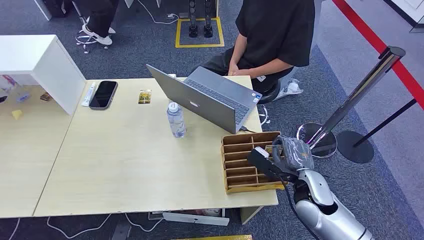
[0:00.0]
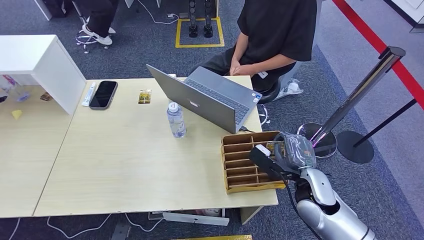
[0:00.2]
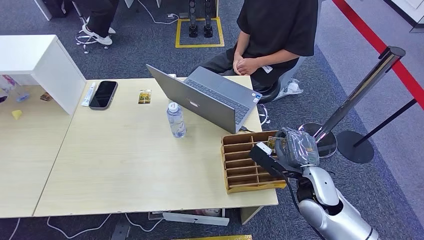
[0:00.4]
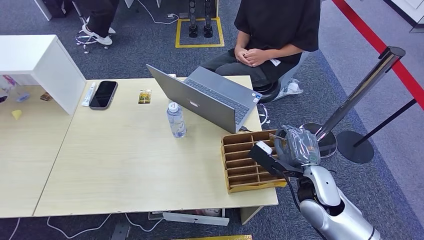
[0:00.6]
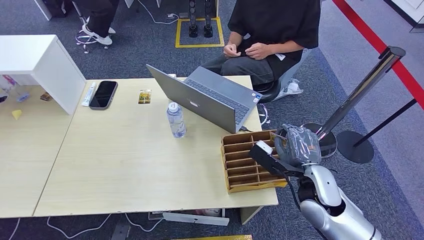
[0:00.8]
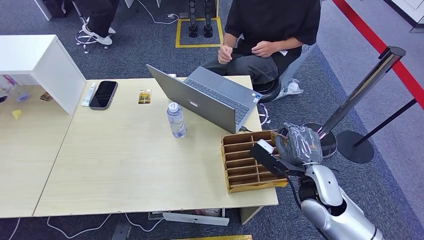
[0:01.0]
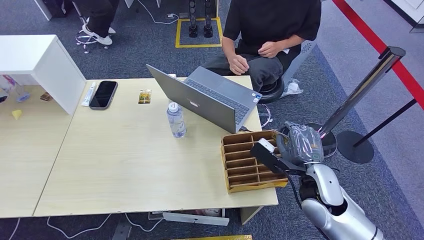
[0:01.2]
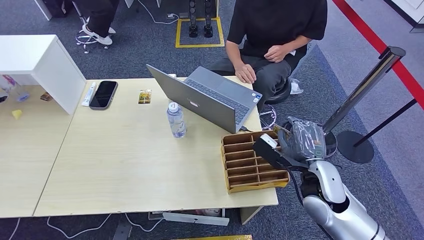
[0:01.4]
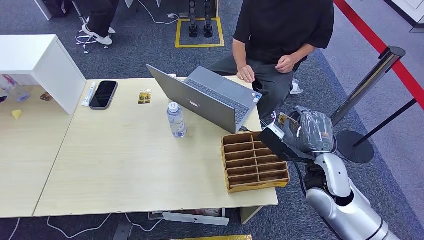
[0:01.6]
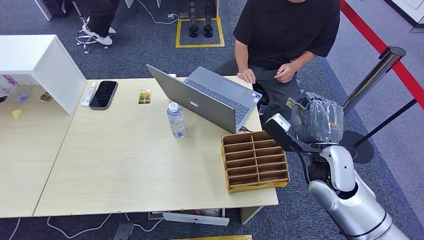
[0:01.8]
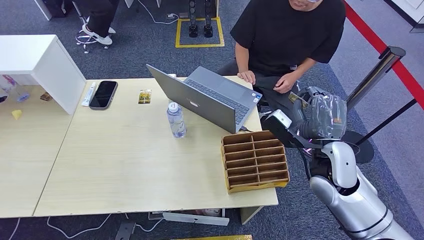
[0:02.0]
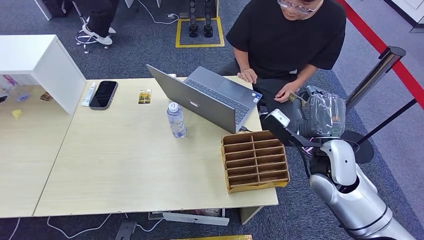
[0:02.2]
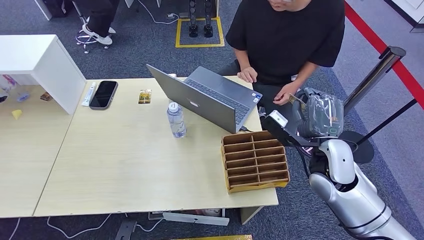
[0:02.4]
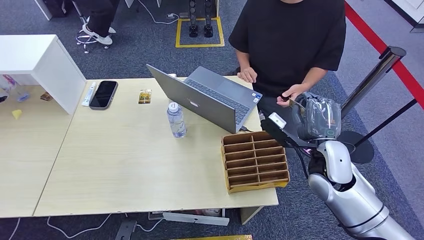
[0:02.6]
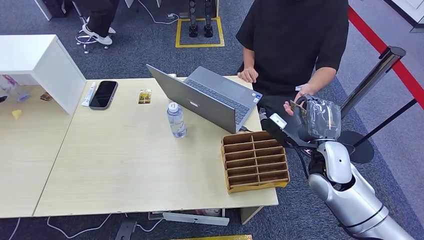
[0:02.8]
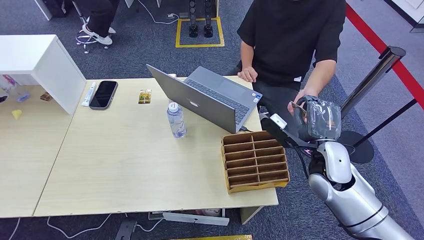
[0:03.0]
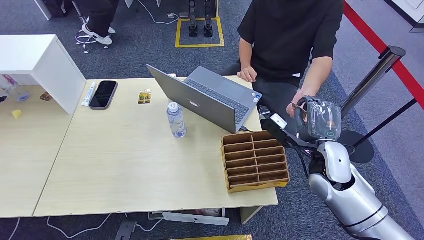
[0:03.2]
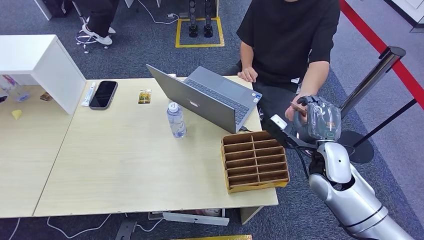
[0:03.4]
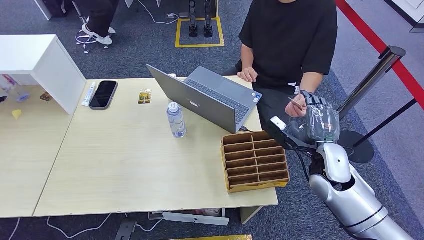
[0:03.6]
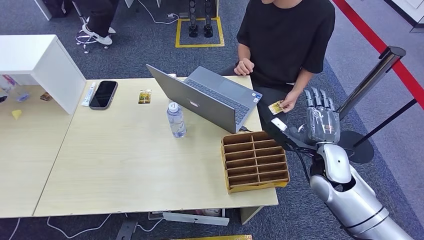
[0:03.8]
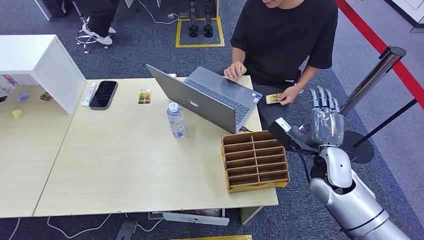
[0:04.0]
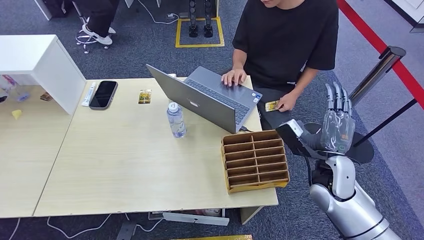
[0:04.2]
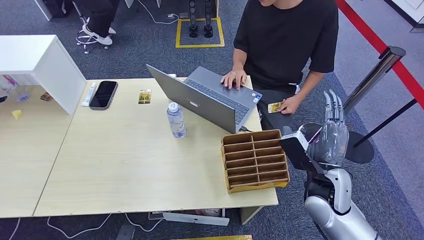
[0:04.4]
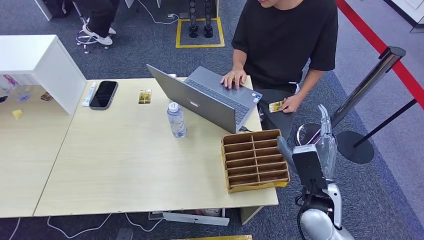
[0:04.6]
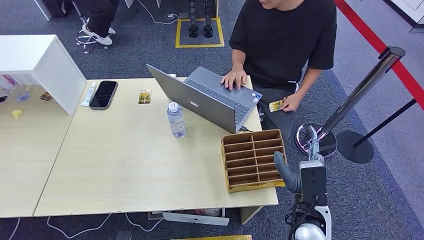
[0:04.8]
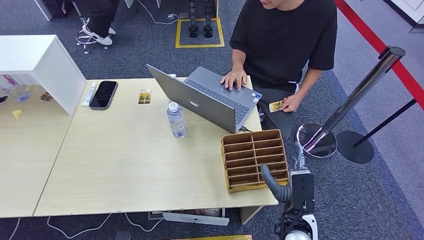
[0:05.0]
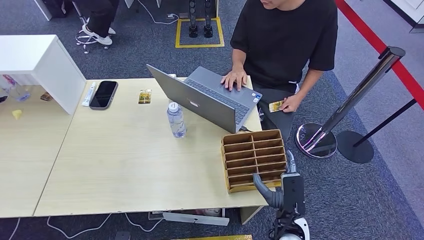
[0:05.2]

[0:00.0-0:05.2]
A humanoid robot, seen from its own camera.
Step, 0:00.0 to 0:01.6: Pick up the key card from the card box.
Step, 0:01.8 to 0:05.2: Hand the key card to the target.
0:01.8 to 0:03.4: There are only small adjustments of the hands.
0:03.4 to 0:05.2: The right hand shifts about 20 cm backward, downward and to the left.
